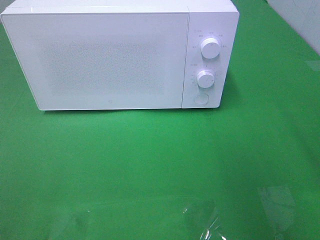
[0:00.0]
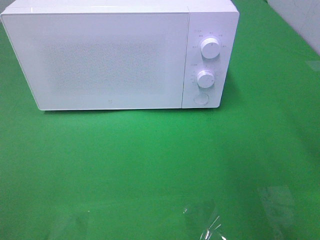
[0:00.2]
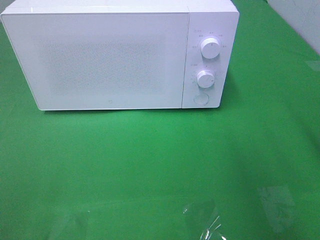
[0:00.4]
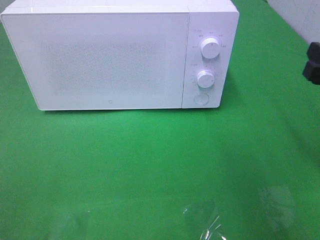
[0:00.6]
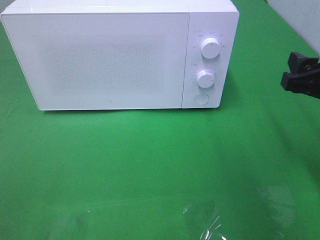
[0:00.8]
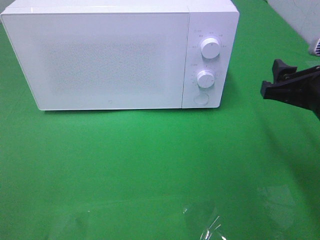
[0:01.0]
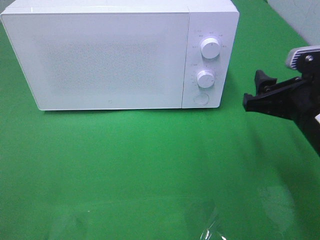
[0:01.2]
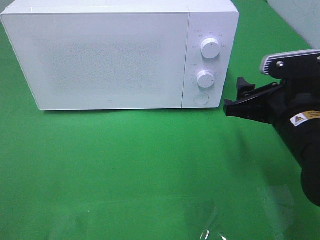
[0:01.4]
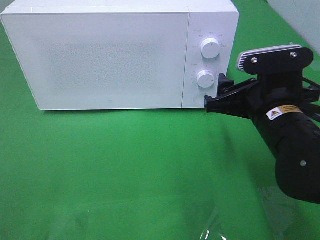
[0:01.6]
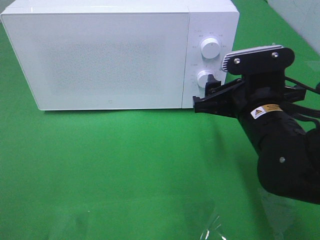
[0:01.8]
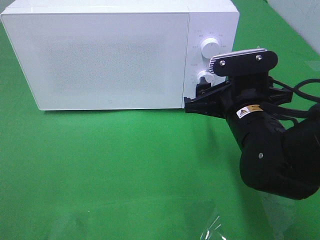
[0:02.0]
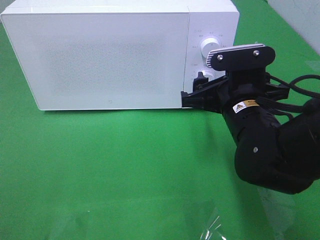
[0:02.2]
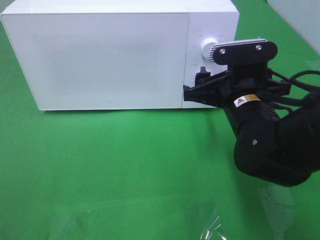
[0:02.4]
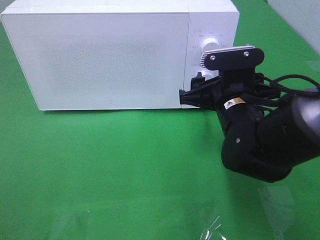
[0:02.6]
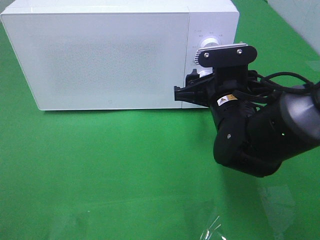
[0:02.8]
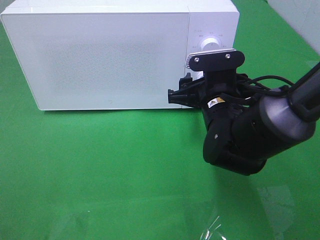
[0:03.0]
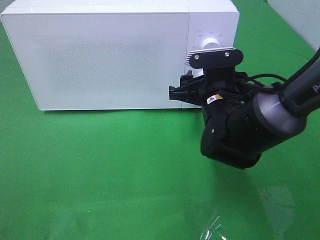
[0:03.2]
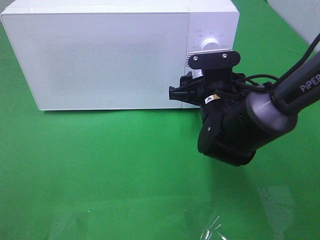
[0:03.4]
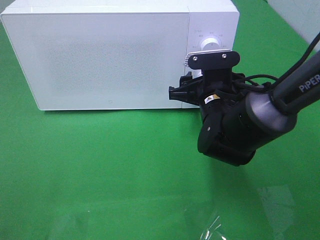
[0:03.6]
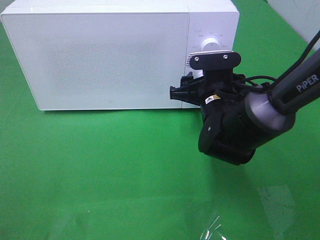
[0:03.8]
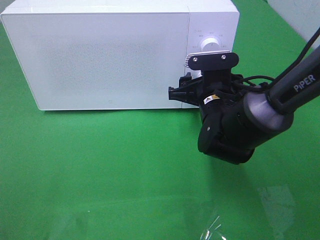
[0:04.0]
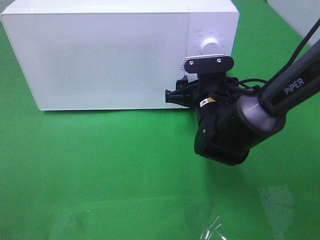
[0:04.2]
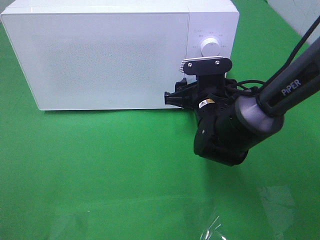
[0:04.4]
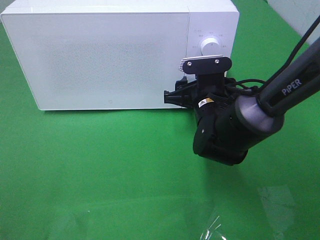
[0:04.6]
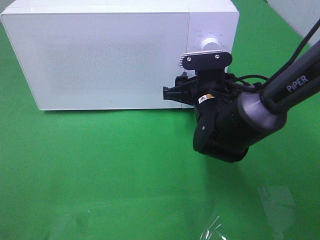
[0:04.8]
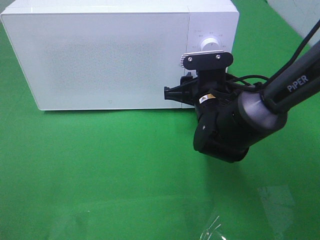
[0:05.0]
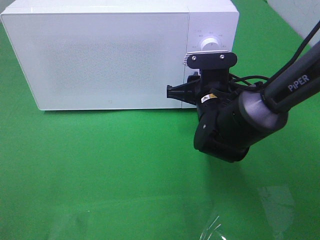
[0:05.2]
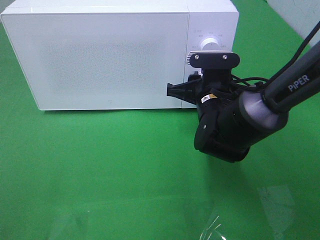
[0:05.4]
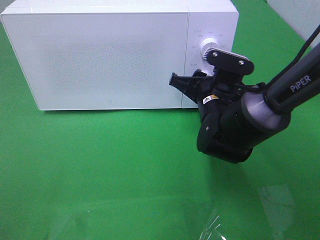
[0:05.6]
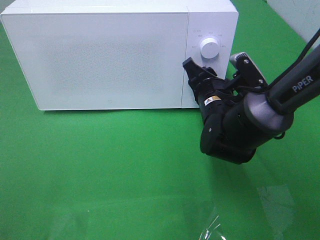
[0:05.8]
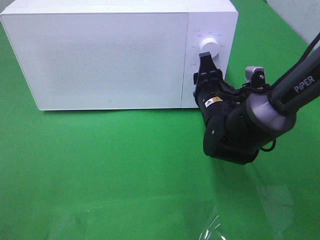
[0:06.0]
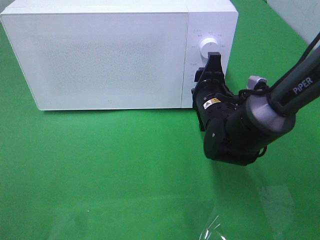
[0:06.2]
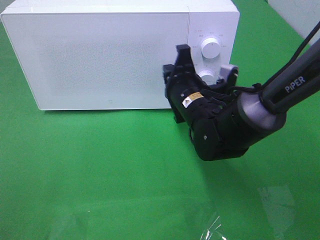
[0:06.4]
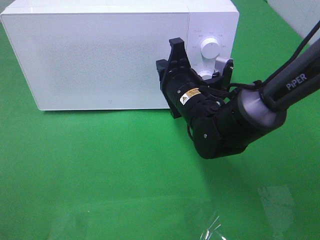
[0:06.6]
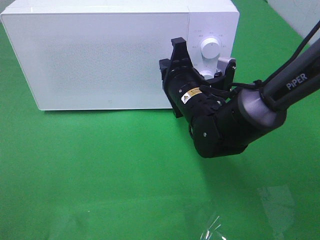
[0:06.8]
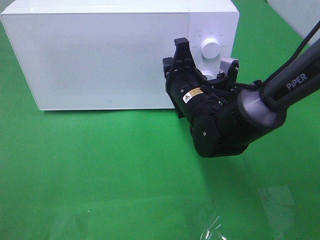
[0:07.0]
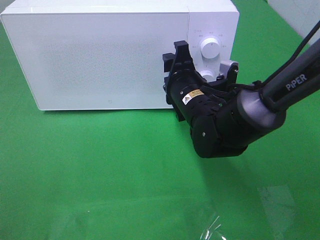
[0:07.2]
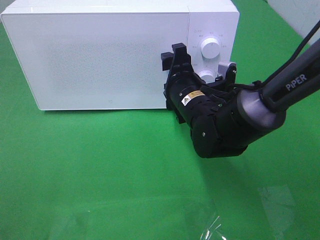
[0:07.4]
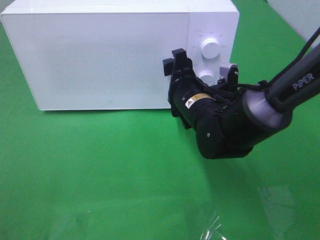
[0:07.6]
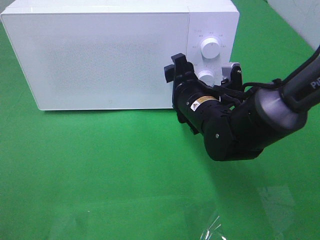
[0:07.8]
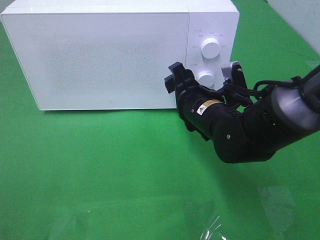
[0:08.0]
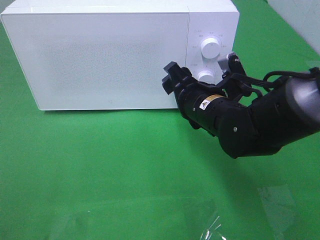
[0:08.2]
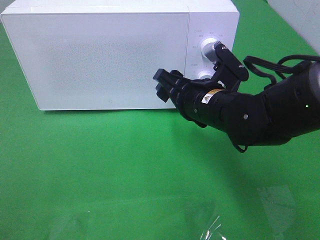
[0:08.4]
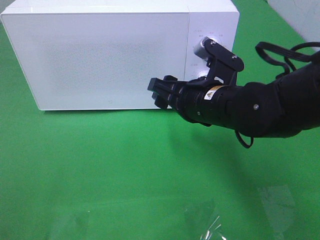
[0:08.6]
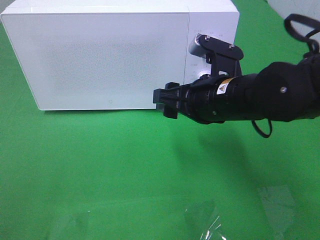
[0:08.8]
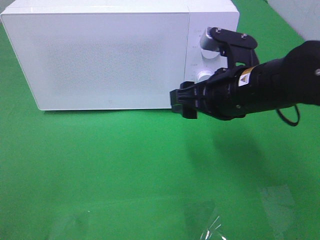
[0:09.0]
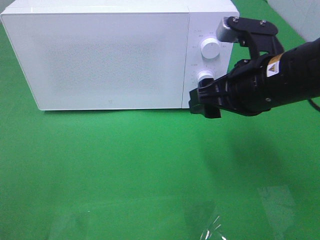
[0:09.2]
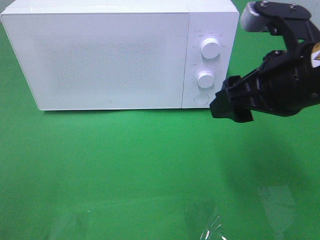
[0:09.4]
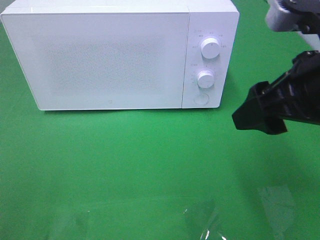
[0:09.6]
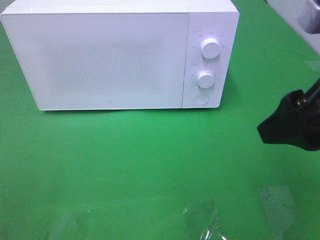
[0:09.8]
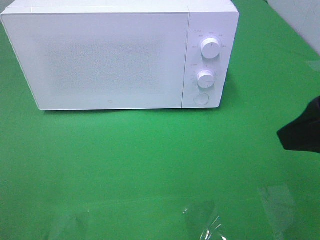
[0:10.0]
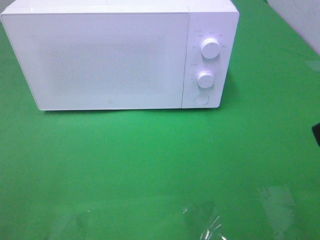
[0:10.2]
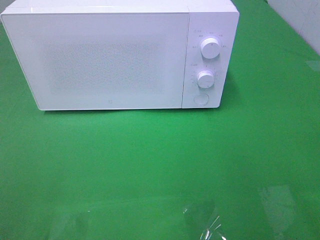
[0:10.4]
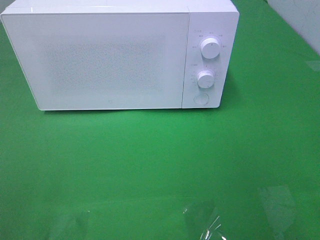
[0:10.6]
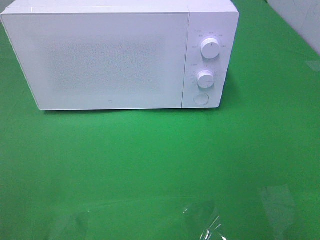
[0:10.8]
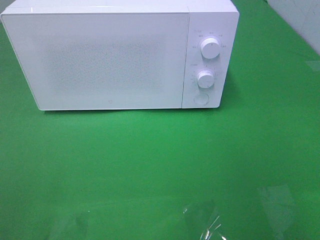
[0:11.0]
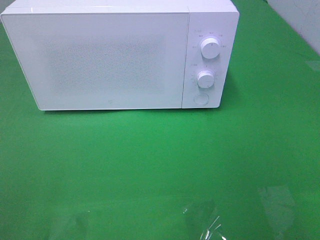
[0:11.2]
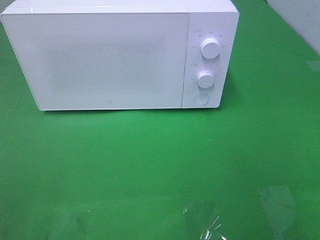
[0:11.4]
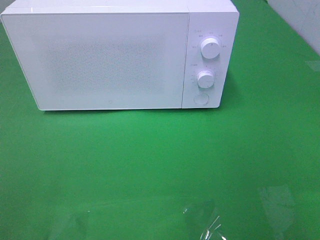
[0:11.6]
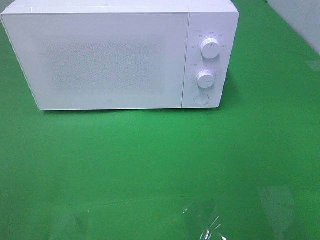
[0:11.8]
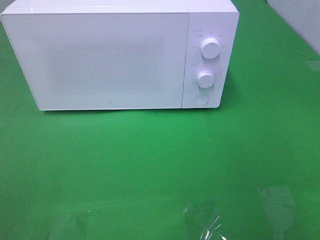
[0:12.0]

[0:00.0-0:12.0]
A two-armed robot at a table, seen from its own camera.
Task of the whole recording: Heat the burger.
Step, 0:00.0 to 0:07.6: Right hand: twist timer button.
0:00.0 to 0:01.6: The right gripper heads to the left, downward and forward, covering some 15 cm.
0:01.6 to 0:03.0: The right gripper is displaced forward and to the left by roughly 10 cm.
0:03.0 to 0:04.4: The grippers stay close to where they were, moving slightly.
0:04.4 to 0:06.0: The right gripper closes its fingers.
0:06.0 to 0:07.6: The right gripper closes and opens again.
0:07.6 to 0:09.0: The right gripper is displaced upward, backward and to the right by some 10 cm.
0:09.0 to 0:10.4: The right gripper is displaced backward, to the right and upward by approximately 25 cm.

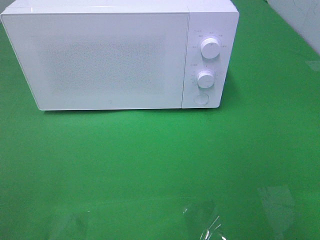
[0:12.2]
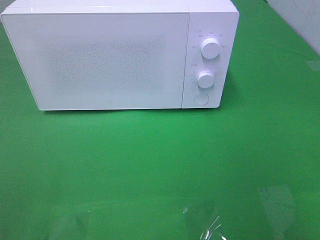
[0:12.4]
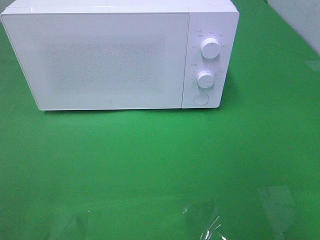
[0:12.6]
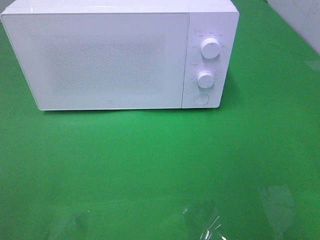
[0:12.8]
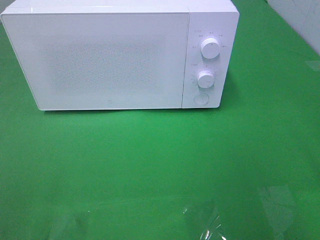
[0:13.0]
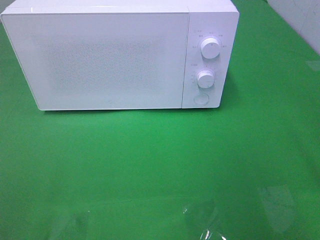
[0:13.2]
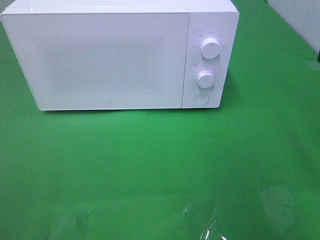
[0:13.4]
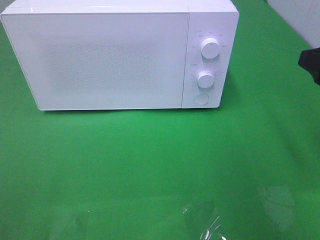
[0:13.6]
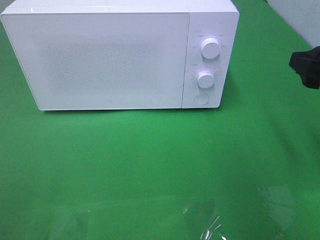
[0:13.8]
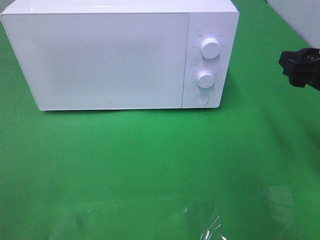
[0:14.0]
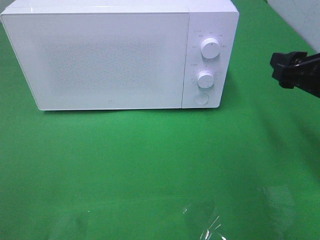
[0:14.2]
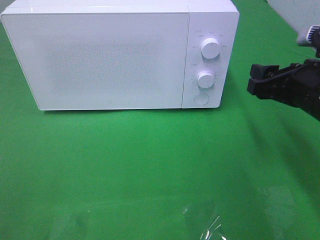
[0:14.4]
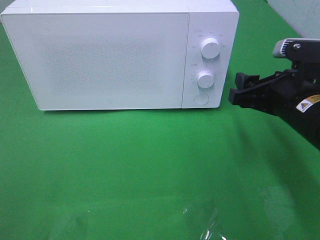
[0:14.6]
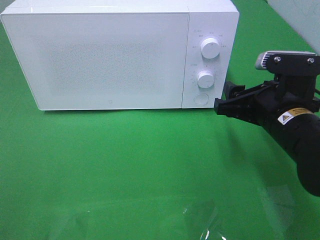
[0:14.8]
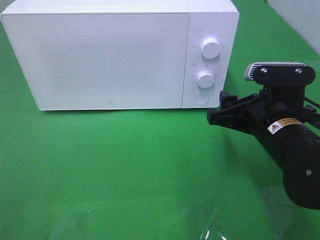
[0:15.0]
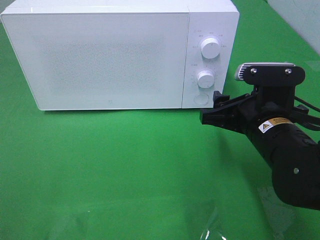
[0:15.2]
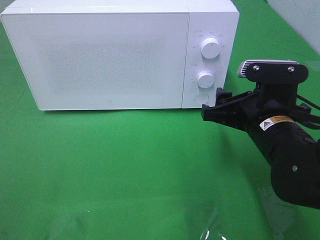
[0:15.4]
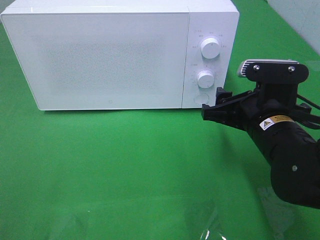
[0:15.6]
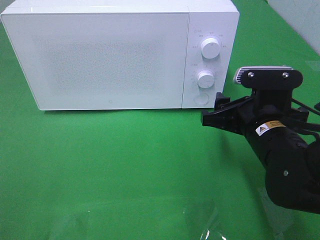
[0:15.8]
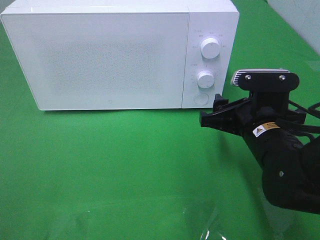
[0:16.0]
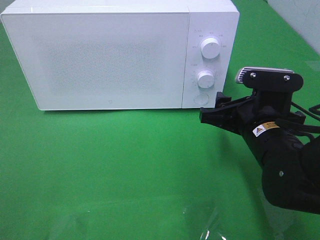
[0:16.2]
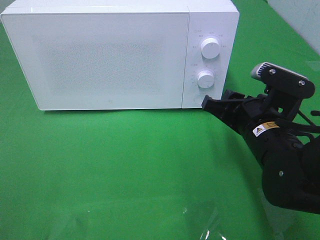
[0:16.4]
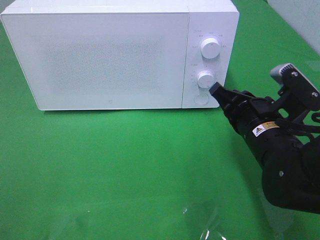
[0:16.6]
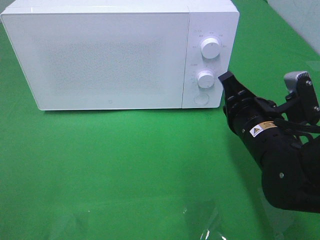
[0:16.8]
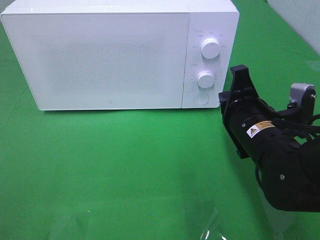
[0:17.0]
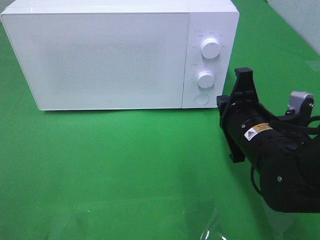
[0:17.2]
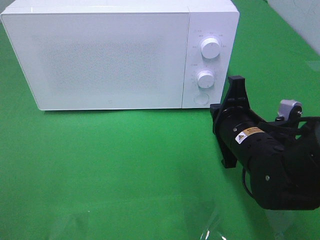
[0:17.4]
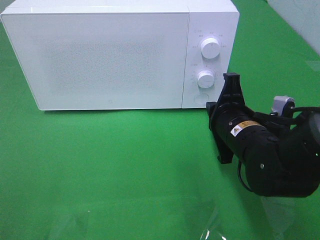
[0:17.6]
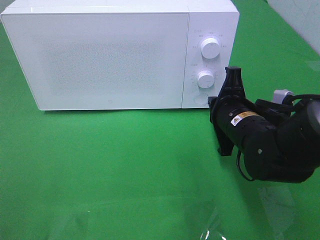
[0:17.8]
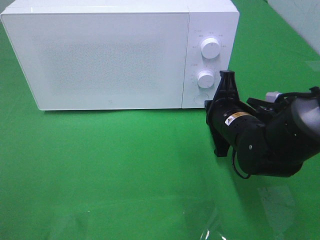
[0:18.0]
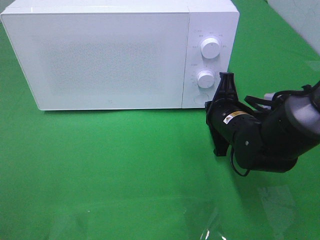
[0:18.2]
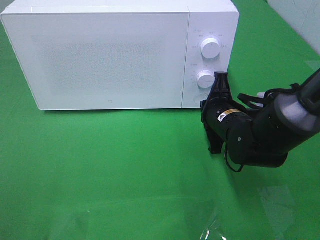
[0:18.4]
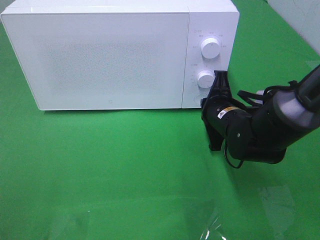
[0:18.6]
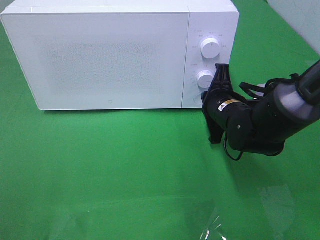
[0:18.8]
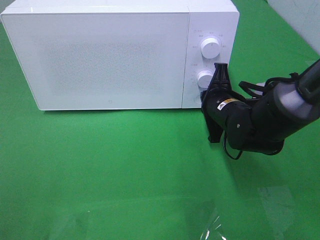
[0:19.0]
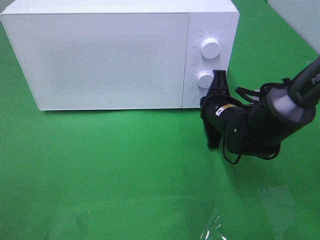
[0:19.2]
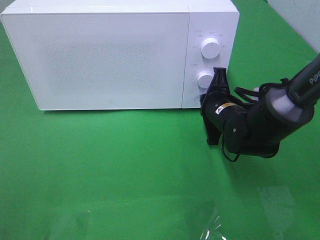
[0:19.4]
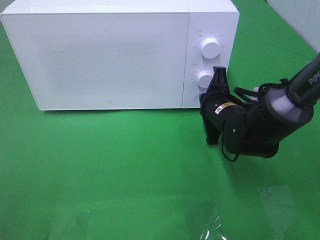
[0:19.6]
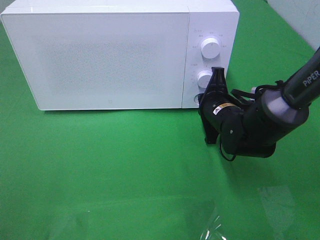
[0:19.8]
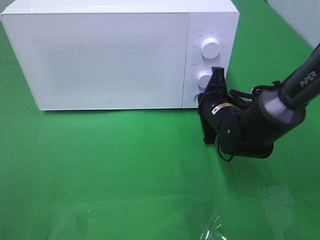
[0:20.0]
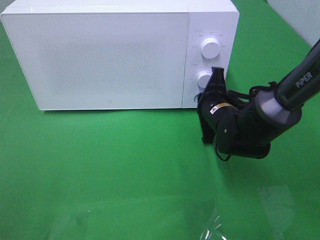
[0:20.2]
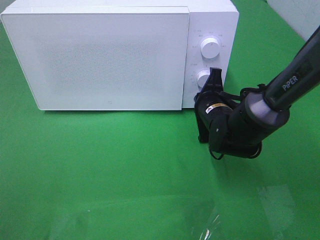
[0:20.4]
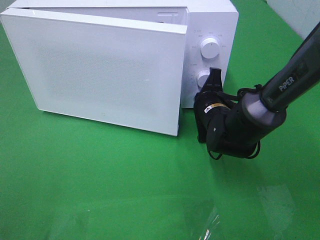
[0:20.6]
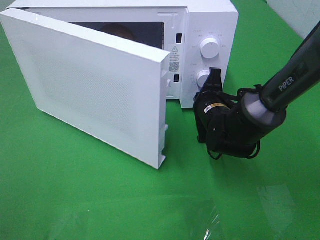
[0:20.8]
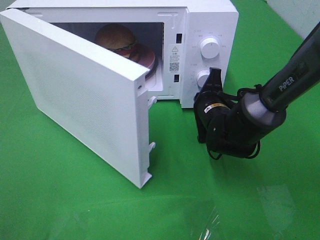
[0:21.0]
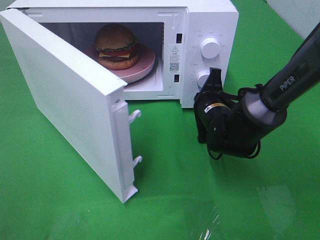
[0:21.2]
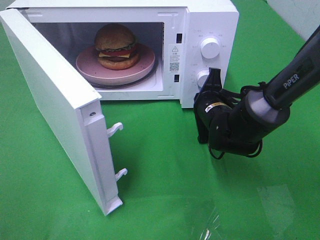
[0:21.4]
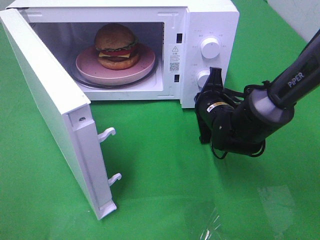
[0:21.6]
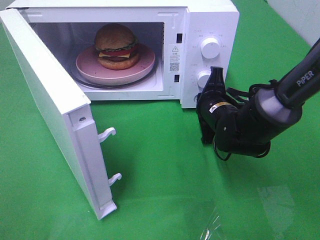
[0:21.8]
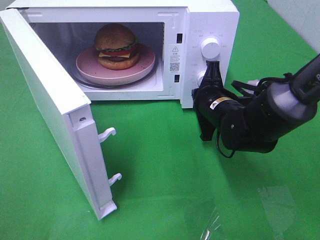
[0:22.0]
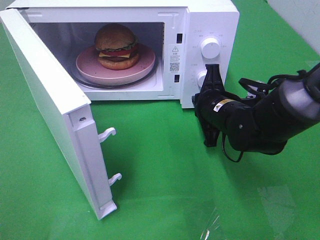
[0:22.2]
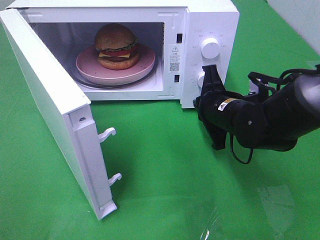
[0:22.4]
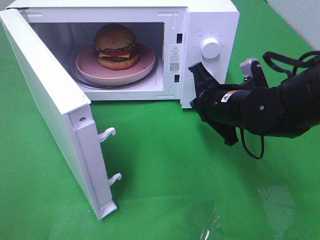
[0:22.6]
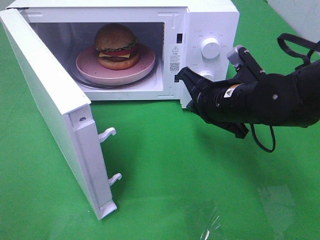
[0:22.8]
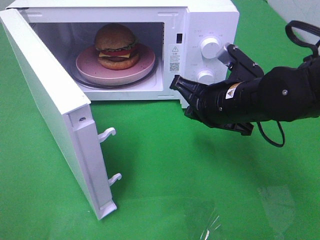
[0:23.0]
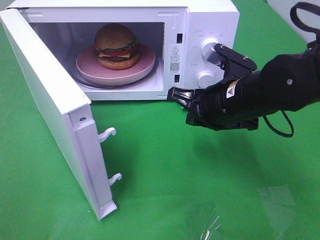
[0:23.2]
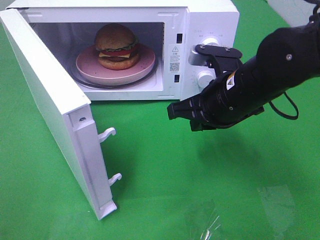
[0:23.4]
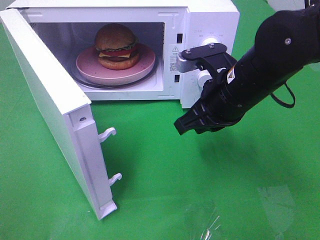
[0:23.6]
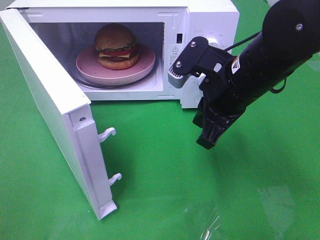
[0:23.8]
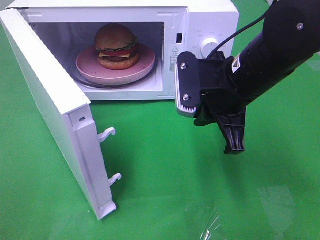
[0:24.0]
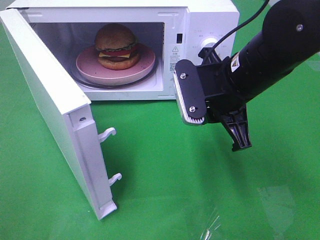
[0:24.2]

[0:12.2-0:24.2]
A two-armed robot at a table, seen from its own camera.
Task of the whole recording: Heat the burger.
Step, 0:12.2 to 0:22.2: Right hand: press the switch.
0:12.2 to 0:13.8: The right gripper goes approximately 20 cm forward.
0:13.8 to 0:15.2: The right gripper moves to the left and downward, some 15 cm.
0:15.2 to 0:16.6: The right gripper closes.
0:16.6 to 0:18.2: The right gripper travels forward by some 5 cm.
0:18.2 to 0:19.8: The grippers move only a little.
0:21.2 to 0:22.6: The right gripper moves upward and backward, about 10 cm.
0:22.6 to 0:24.2: The right gripper goes roughly 10 cm upward, and opens up.
